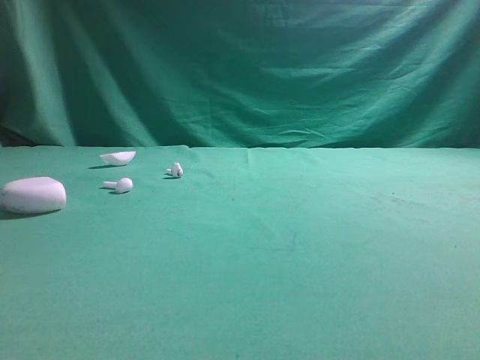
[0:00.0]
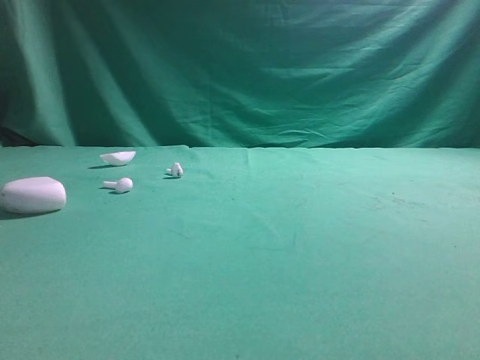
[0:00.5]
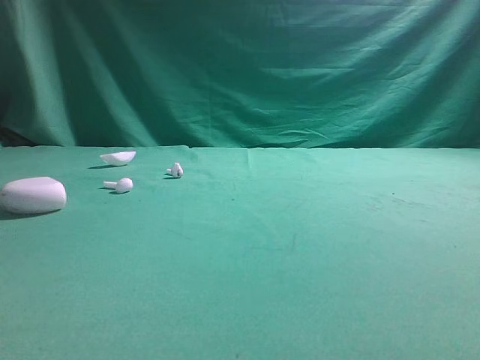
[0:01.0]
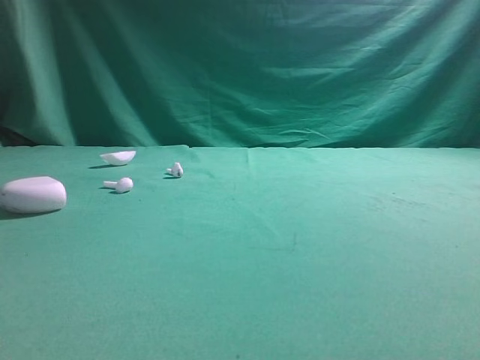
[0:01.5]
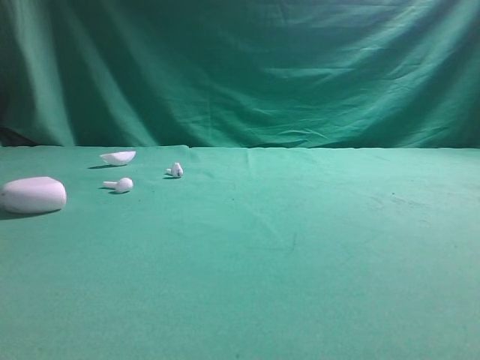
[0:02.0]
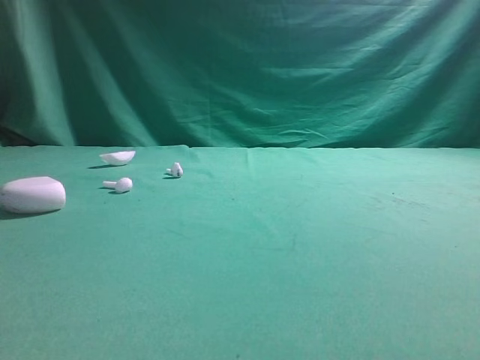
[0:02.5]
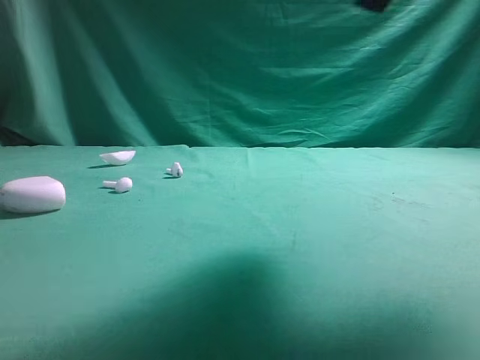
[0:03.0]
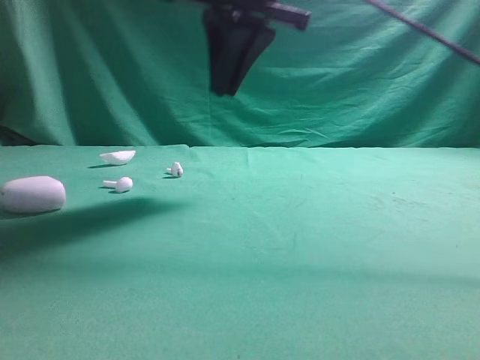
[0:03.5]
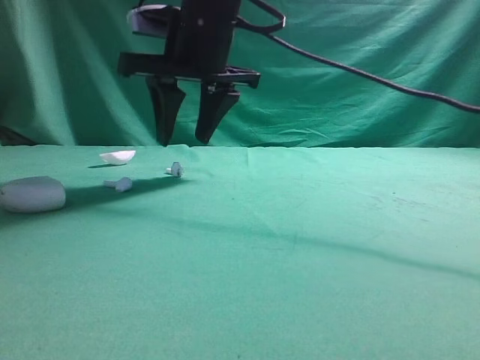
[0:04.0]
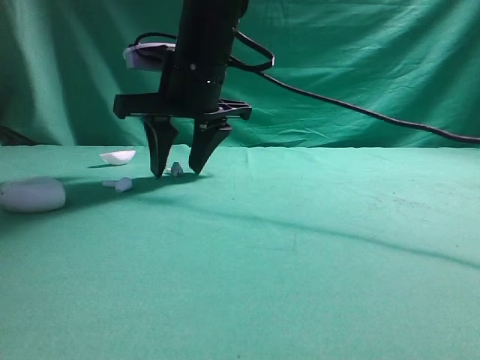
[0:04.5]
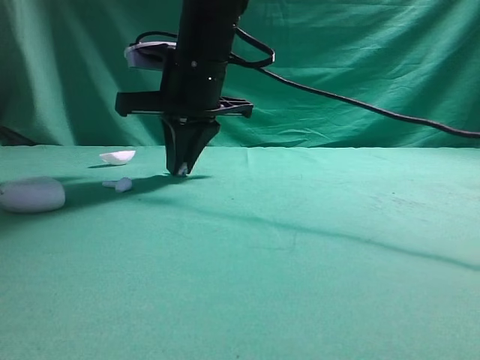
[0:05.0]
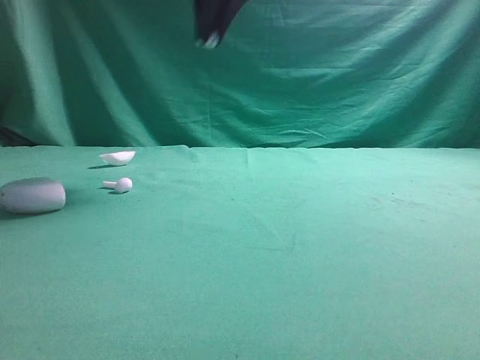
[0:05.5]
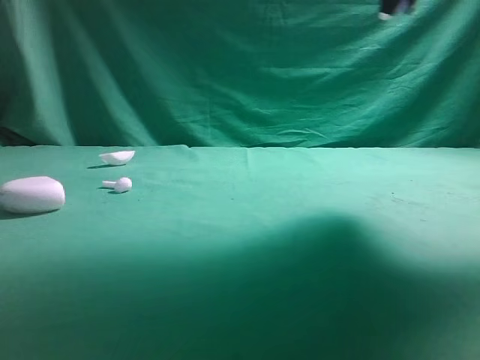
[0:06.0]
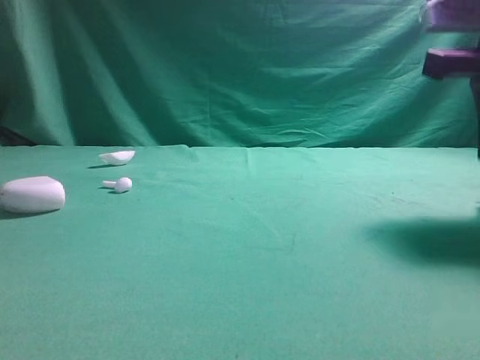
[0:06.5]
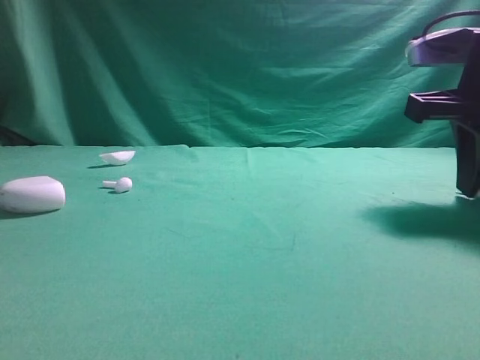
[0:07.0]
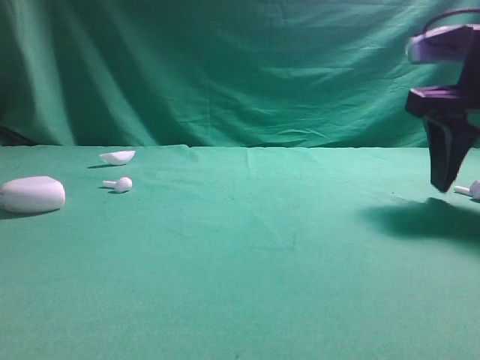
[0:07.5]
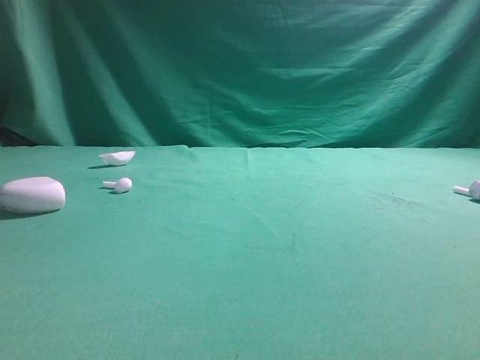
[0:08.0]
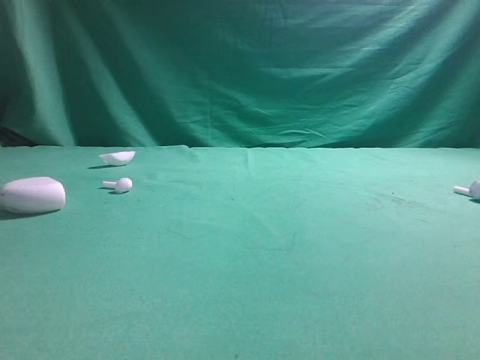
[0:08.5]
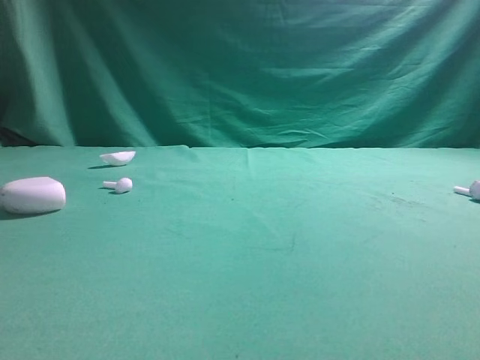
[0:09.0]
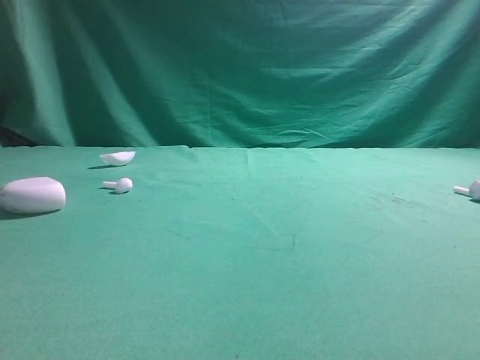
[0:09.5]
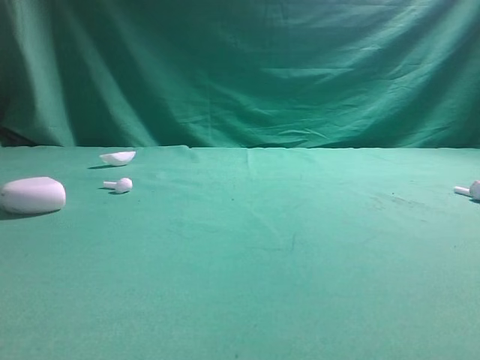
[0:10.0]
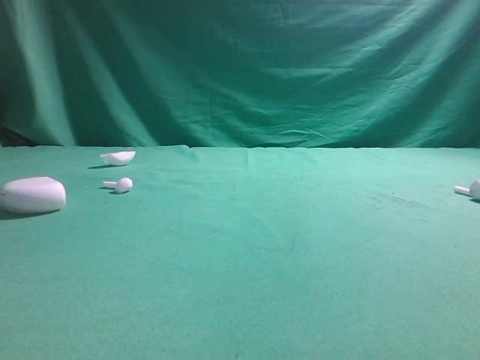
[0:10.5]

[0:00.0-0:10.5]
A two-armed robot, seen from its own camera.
Step, 0:00.0 to 0:05.0: Grasp the Bluetooth earbud.
Step, 0:05.5 to 0:07.0: Place bluetooth earbud on the right side of the table.

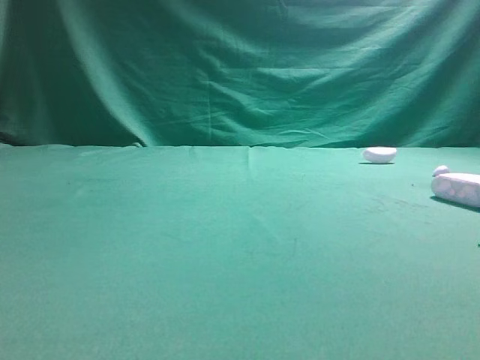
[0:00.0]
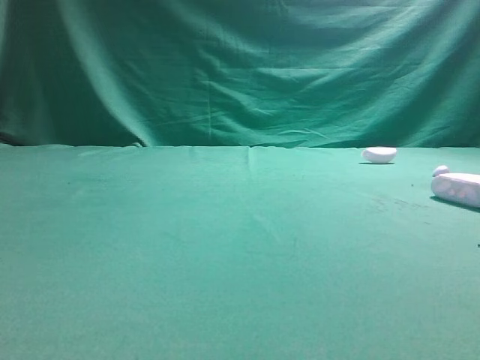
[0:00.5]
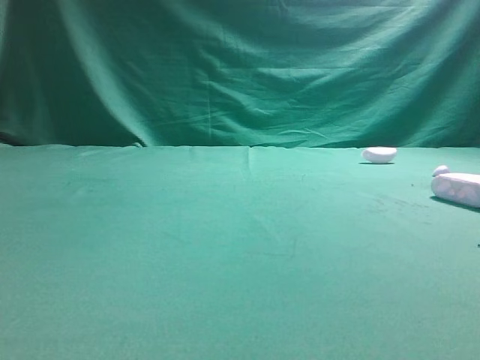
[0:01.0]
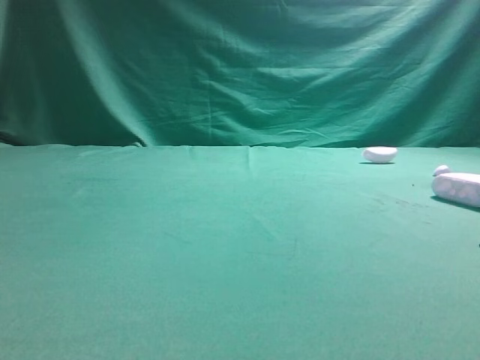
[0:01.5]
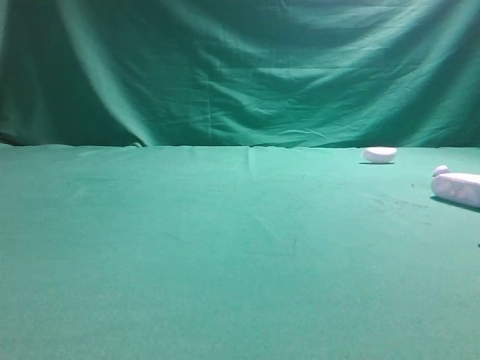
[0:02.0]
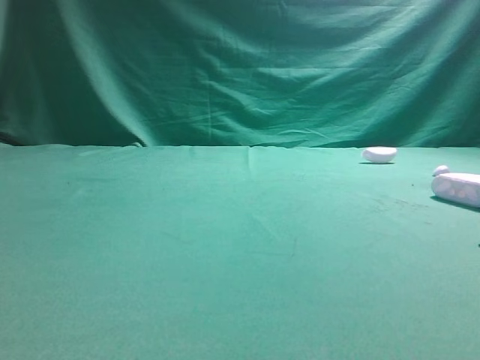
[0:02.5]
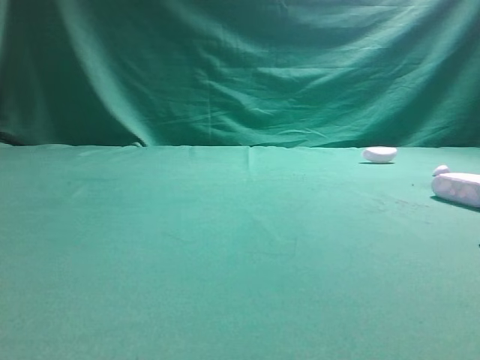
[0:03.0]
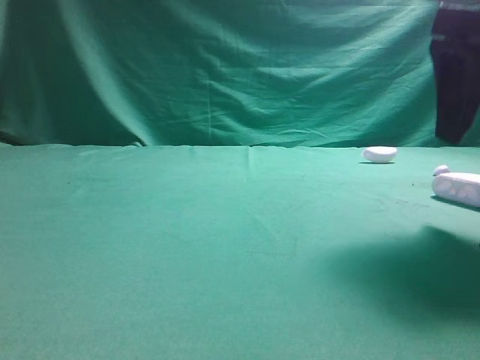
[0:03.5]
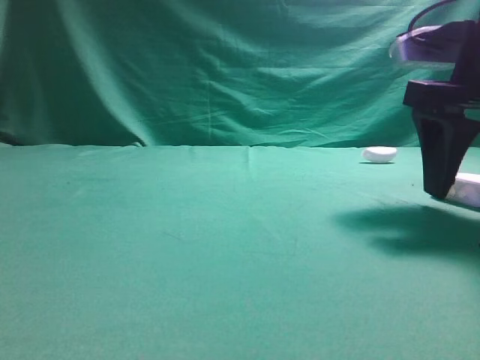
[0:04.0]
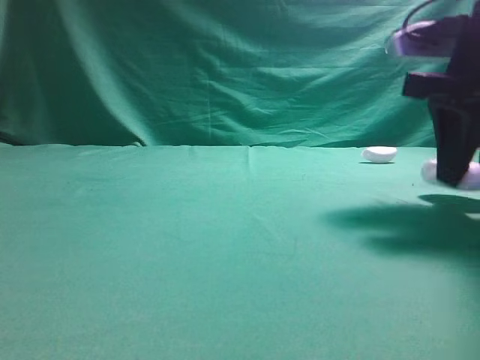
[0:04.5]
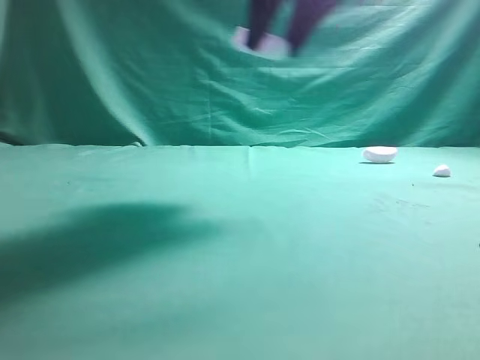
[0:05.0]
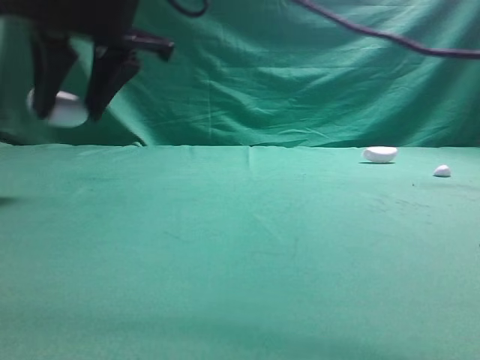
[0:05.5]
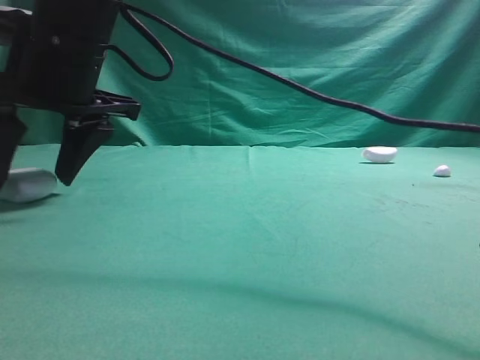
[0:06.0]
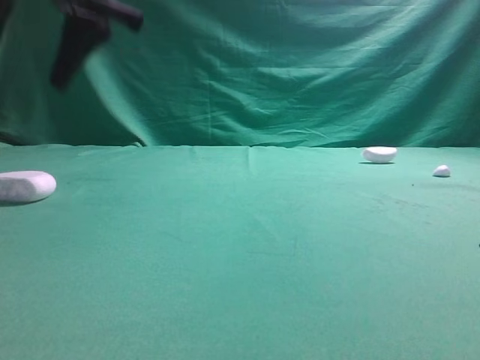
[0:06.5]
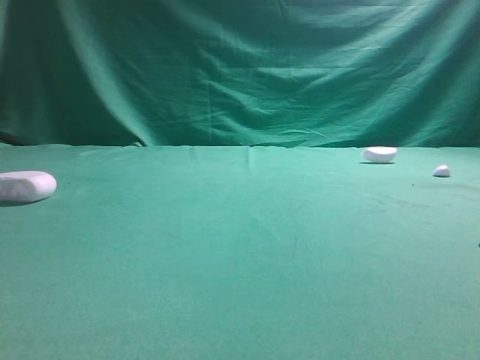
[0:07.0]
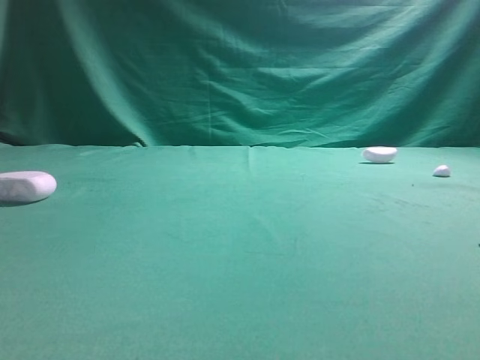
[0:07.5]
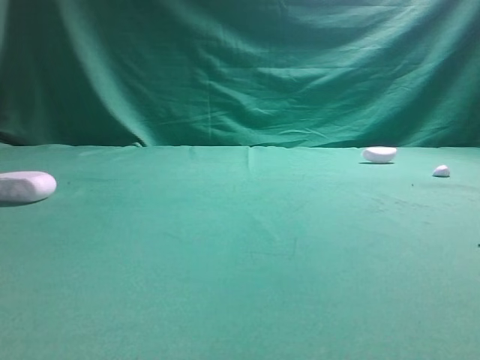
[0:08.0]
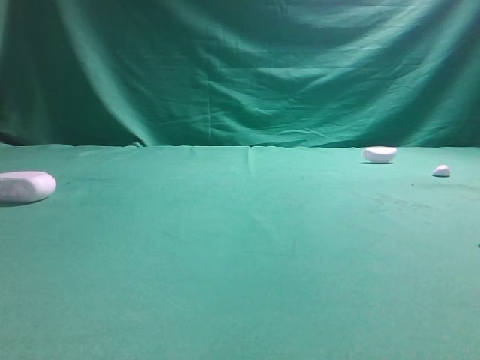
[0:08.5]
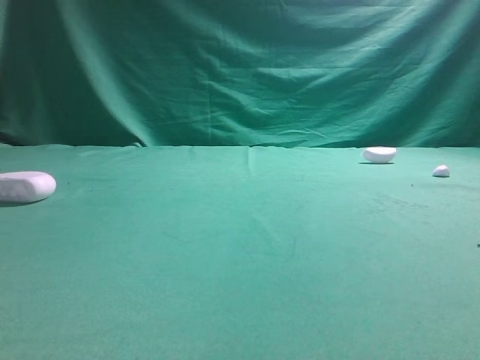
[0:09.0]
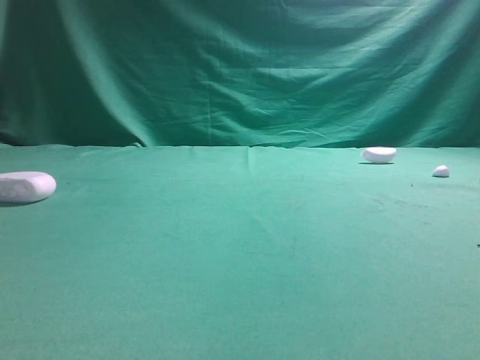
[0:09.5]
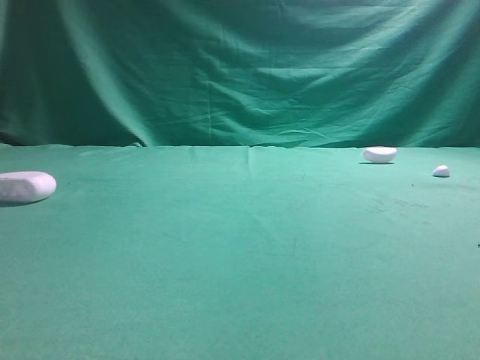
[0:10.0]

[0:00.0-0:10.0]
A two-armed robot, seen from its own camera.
Step, 0:00.0 to 0:04.5: Grasp the Bluetooth earphone case.
Step, 0:05.0 to 0:06.0: Place bluetooth earphone case on the left side of the table.

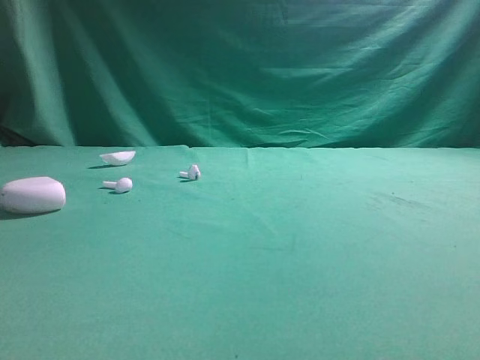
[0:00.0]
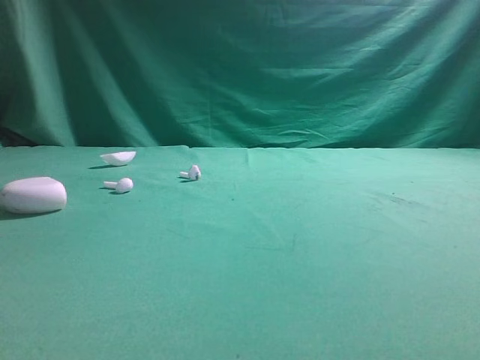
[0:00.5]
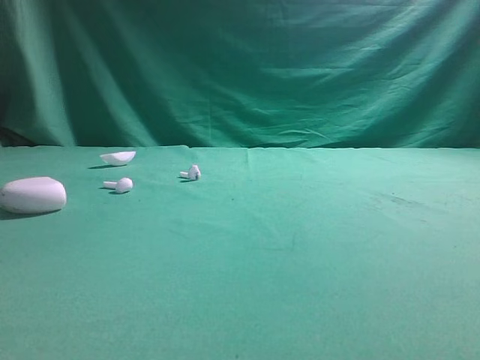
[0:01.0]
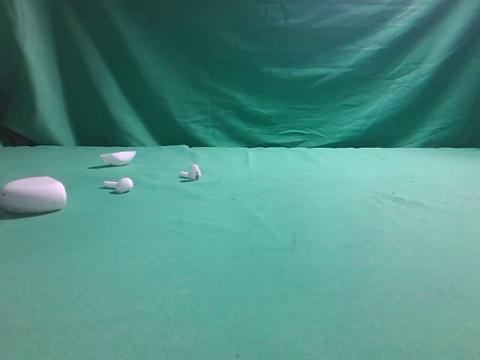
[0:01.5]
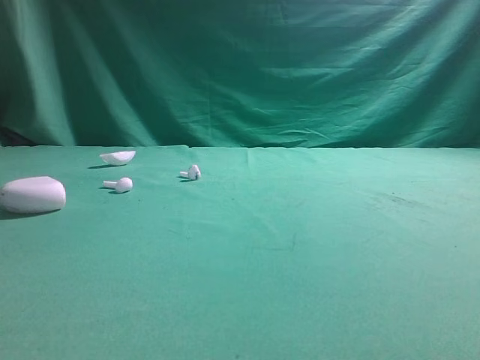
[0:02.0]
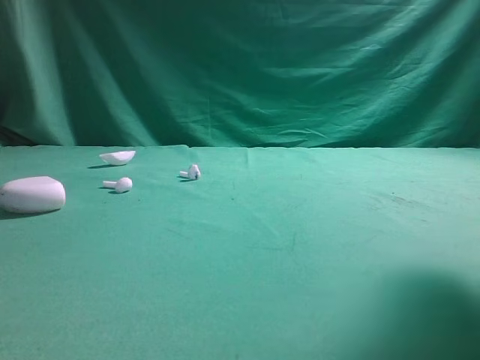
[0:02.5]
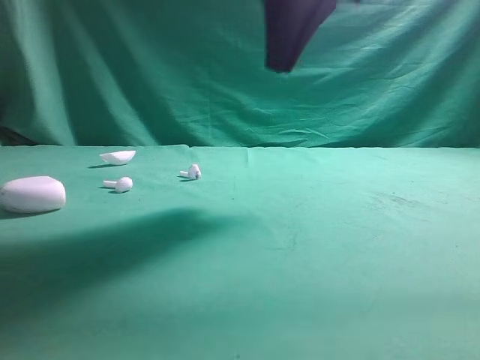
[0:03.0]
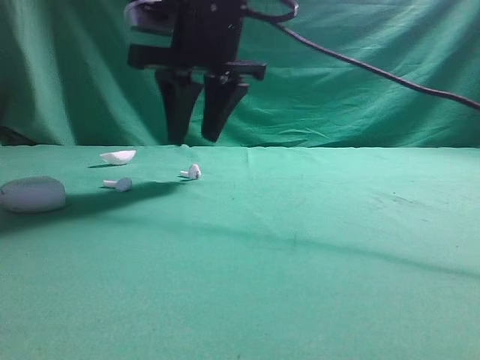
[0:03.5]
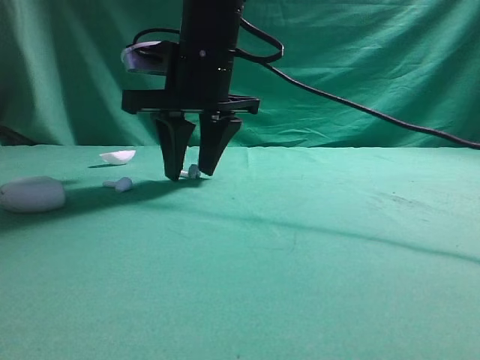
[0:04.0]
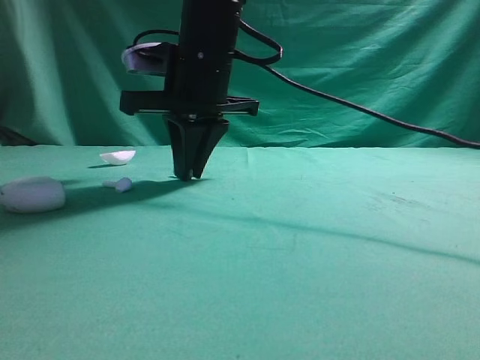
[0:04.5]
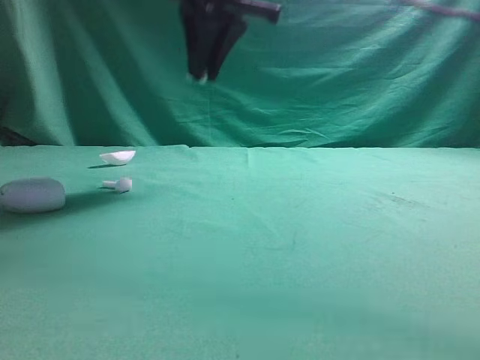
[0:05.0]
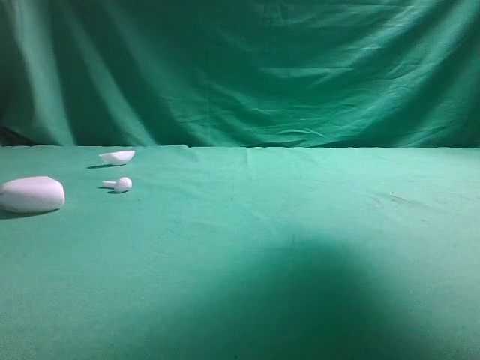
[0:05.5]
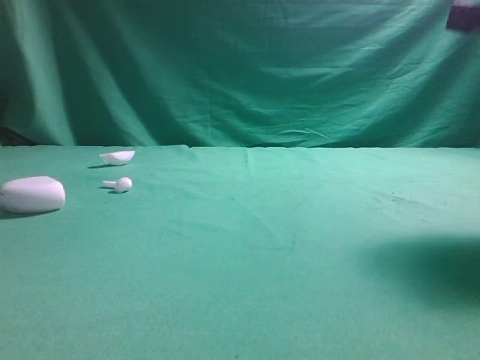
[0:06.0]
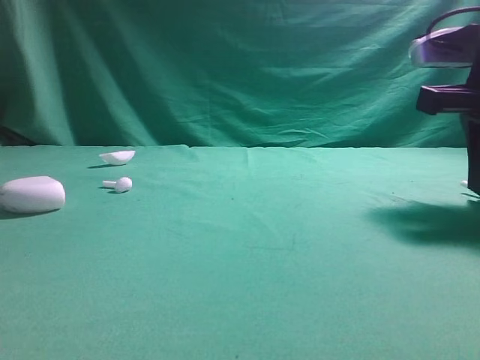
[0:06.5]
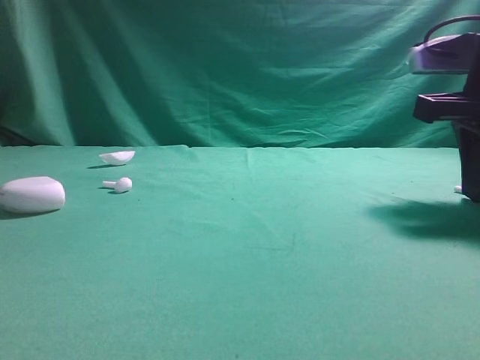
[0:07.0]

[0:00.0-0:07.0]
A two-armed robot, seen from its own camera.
Step, 0:00.0 to 0:05.0: Grasp the Bluetooth earbud.
